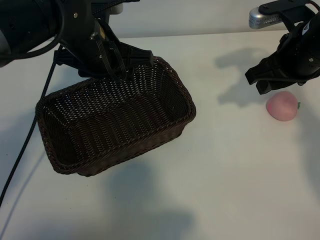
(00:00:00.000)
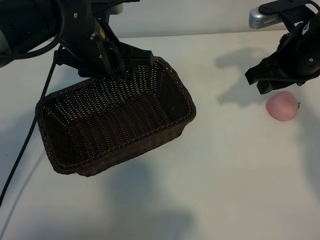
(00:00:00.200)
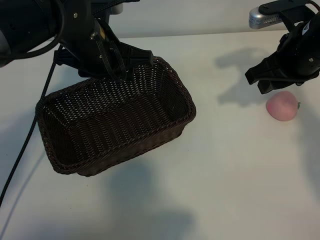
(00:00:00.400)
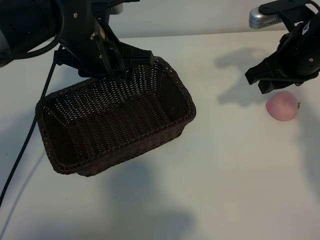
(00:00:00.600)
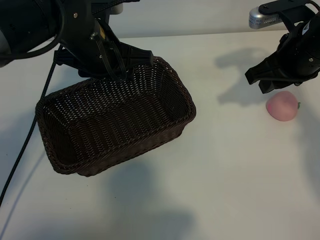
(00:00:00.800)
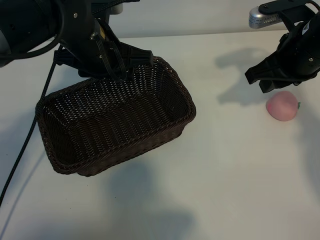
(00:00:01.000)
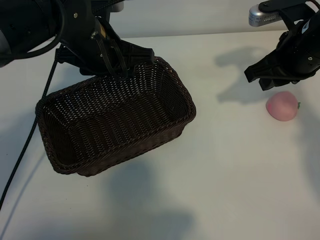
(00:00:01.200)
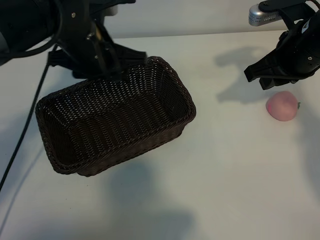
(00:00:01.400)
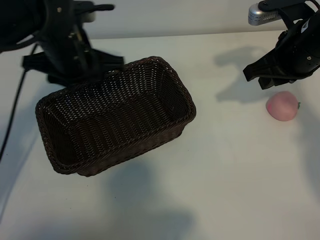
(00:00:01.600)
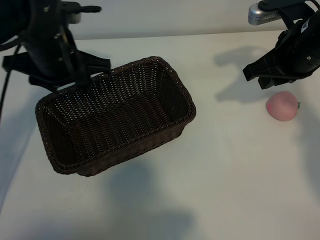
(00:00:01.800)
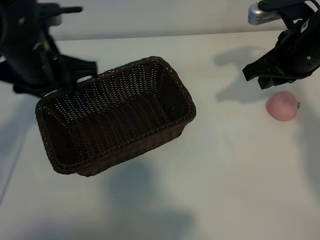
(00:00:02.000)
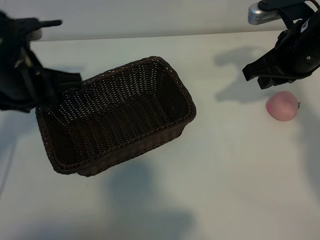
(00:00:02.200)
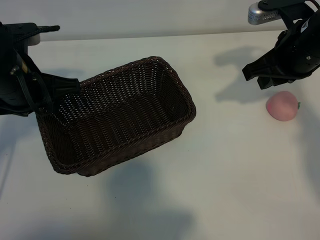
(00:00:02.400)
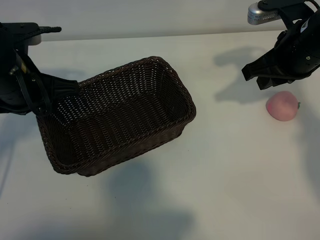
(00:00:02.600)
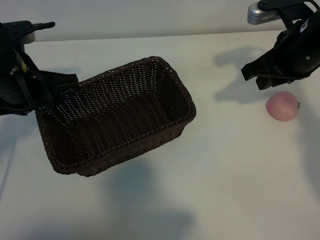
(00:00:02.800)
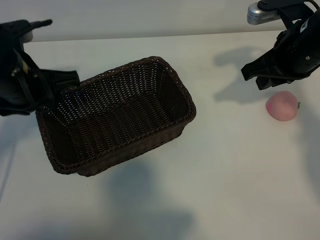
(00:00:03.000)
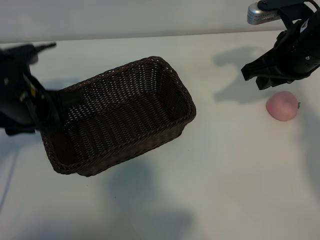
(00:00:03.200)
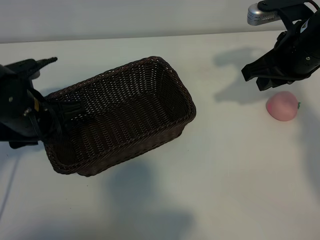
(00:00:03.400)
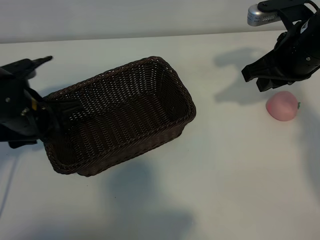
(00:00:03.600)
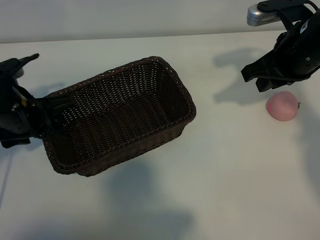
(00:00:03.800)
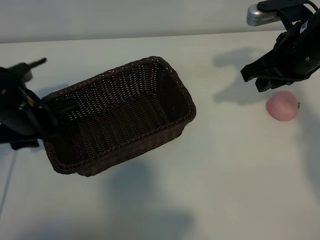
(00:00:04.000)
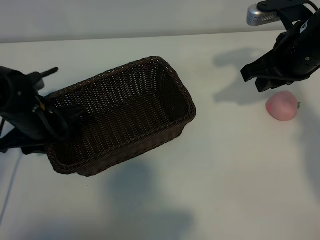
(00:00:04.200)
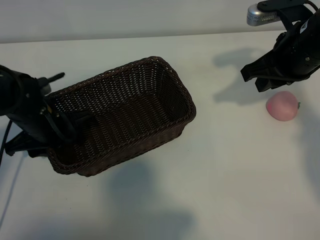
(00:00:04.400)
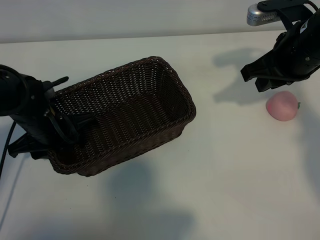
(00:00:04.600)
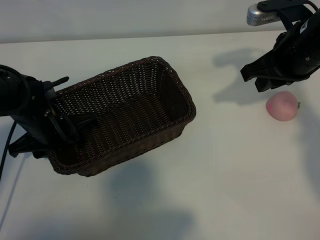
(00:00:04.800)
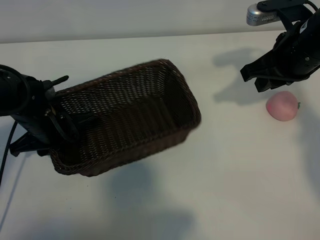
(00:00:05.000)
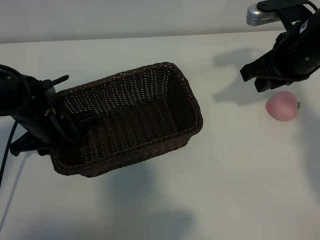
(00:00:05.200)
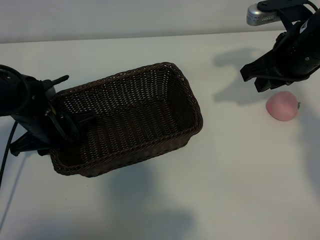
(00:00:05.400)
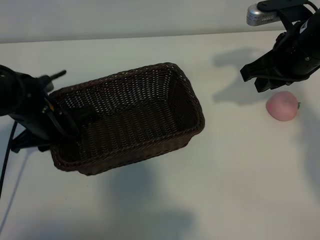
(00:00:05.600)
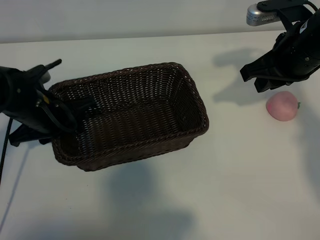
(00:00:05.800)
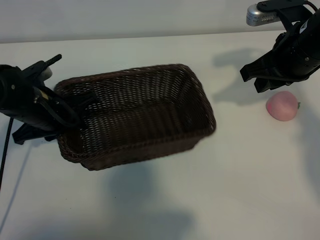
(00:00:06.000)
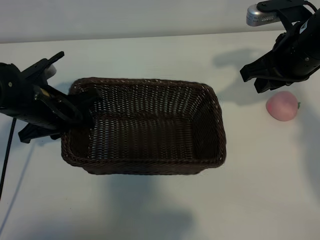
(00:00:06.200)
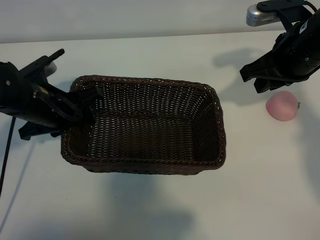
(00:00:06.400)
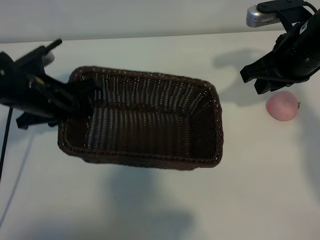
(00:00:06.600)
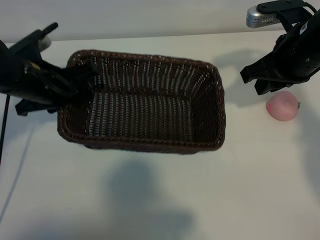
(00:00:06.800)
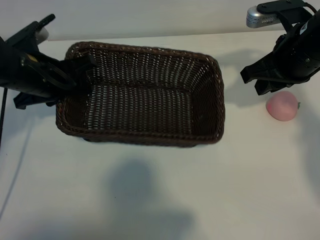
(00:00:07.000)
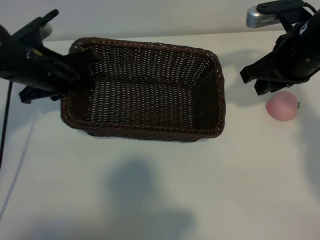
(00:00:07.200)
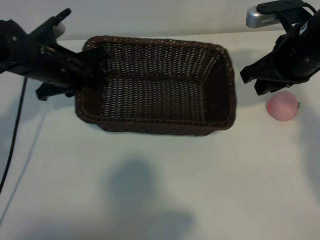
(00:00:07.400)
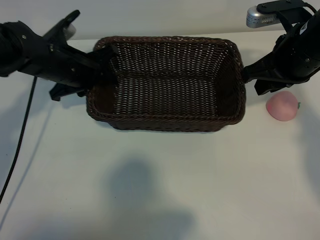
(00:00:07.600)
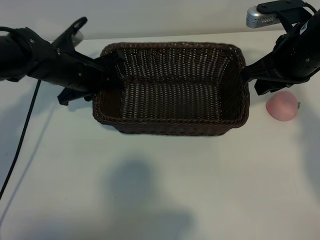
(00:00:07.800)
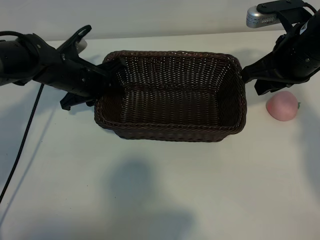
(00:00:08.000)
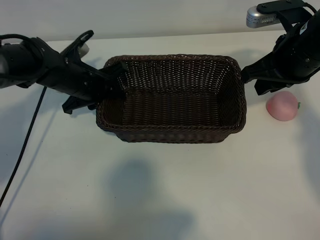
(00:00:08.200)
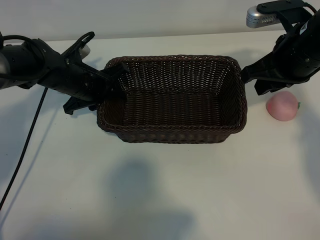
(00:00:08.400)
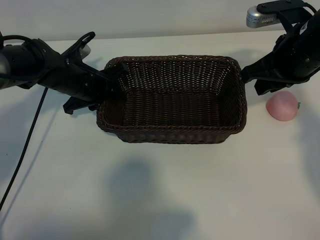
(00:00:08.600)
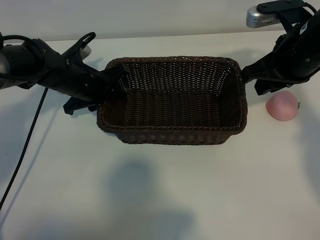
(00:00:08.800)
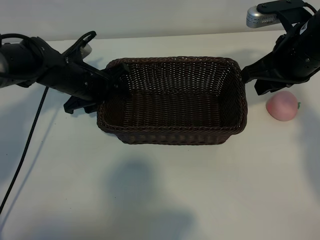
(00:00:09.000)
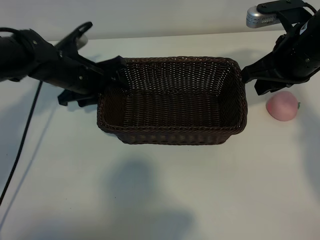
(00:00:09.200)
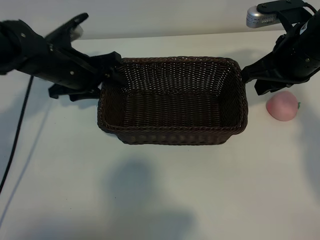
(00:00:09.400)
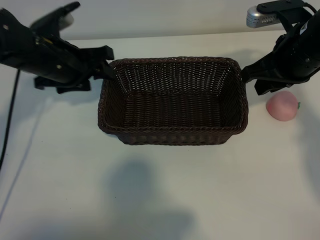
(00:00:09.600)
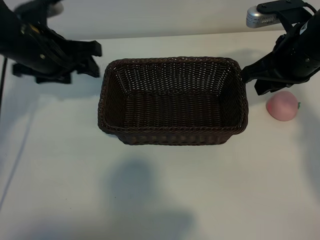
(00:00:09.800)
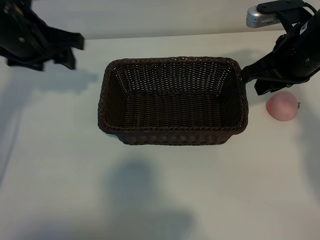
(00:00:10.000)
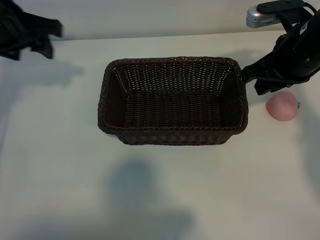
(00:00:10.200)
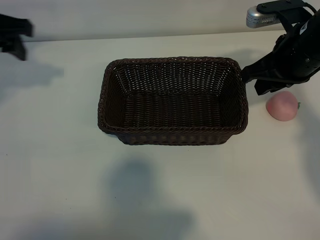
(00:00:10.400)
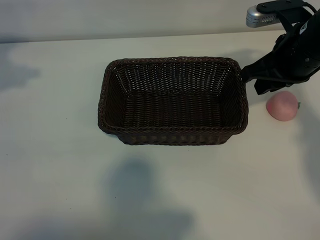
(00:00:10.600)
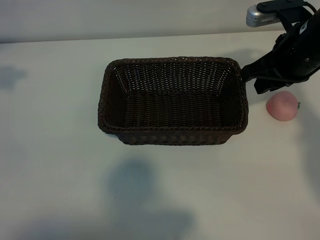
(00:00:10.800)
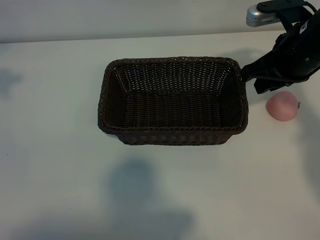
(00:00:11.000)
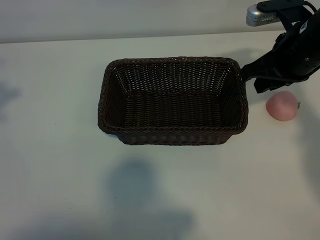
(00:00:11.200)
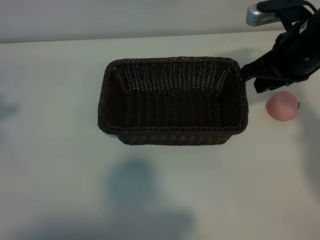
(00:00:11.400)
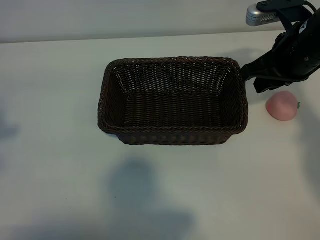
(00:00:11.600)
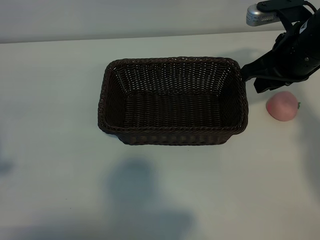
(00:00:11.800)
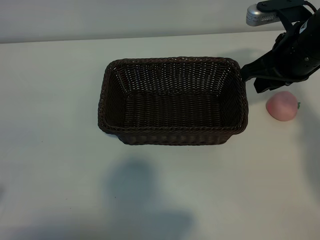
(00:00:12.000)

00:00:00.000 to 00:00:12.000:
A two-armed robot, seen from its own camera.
Task of the whole recording: pick up the peach and put it into the basket.
Step, 00:00:01.400 to 00:00:05.200: Grasp the basket with left gripper.
Step, 00:00:05.400 to 00:00:09.400: Place the basket in the center of view with left gripper.

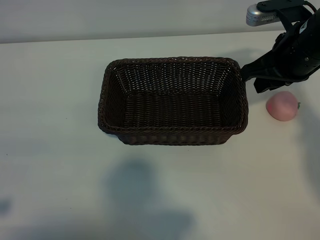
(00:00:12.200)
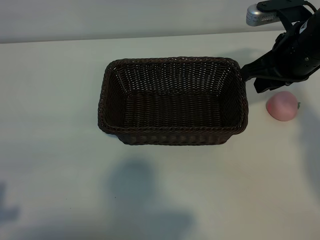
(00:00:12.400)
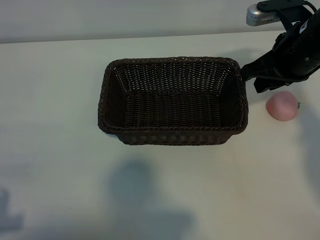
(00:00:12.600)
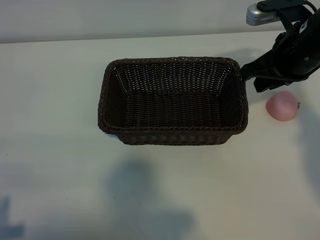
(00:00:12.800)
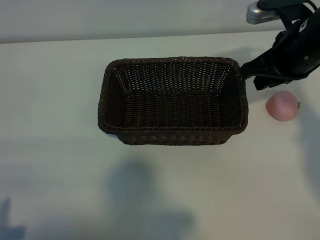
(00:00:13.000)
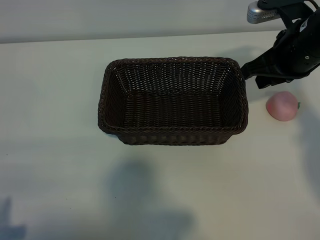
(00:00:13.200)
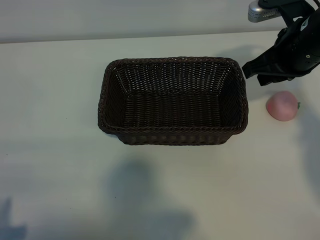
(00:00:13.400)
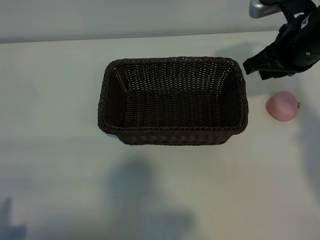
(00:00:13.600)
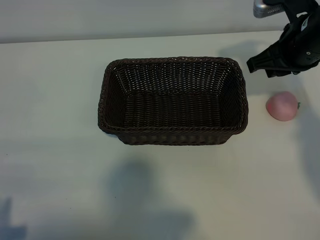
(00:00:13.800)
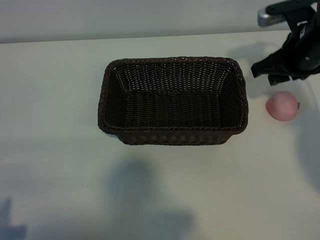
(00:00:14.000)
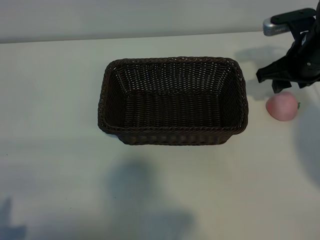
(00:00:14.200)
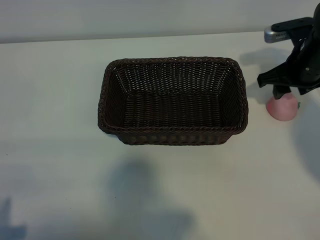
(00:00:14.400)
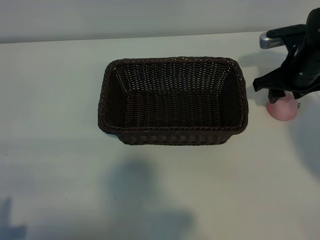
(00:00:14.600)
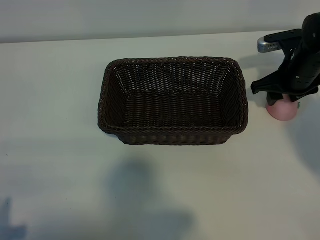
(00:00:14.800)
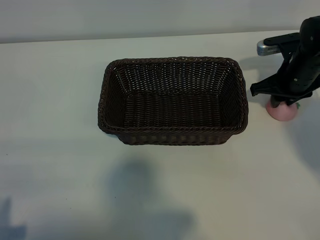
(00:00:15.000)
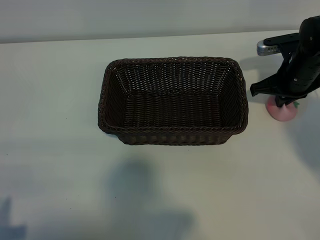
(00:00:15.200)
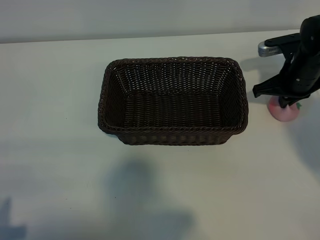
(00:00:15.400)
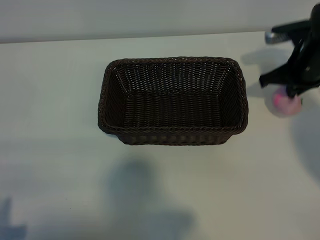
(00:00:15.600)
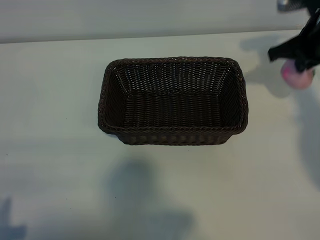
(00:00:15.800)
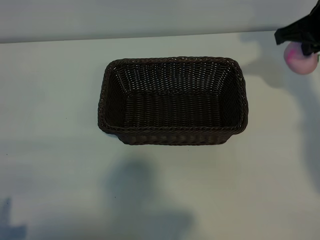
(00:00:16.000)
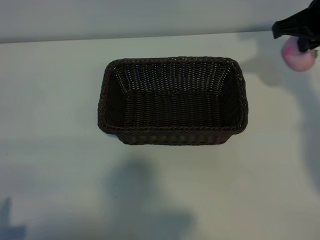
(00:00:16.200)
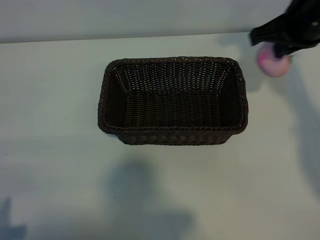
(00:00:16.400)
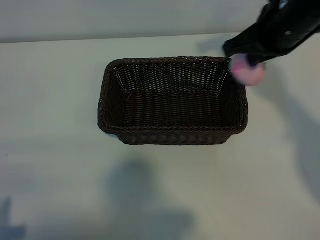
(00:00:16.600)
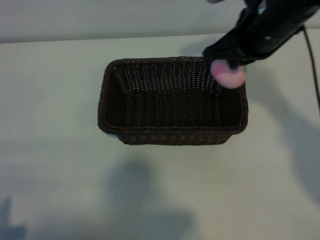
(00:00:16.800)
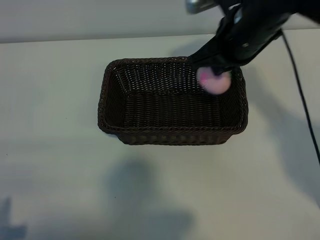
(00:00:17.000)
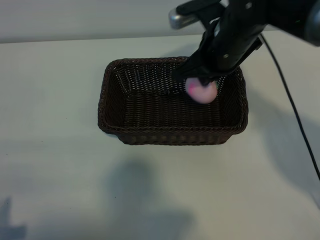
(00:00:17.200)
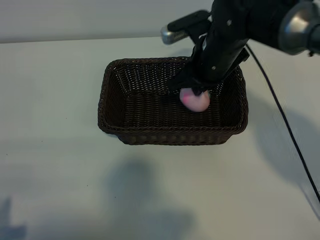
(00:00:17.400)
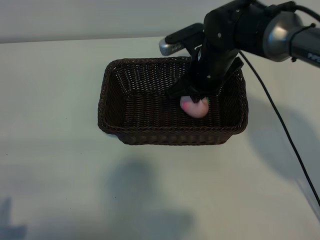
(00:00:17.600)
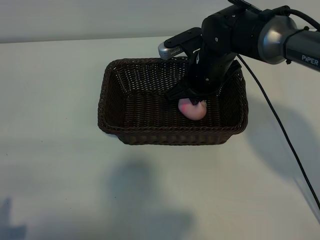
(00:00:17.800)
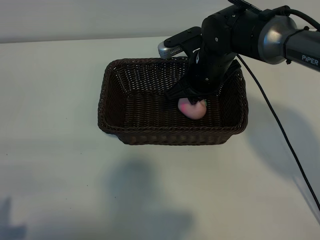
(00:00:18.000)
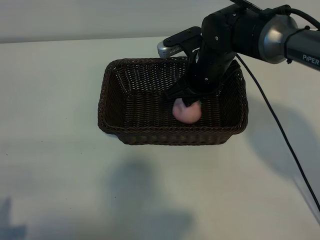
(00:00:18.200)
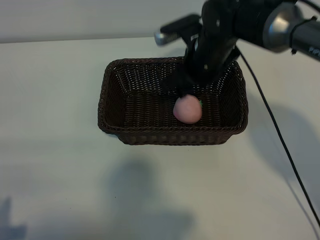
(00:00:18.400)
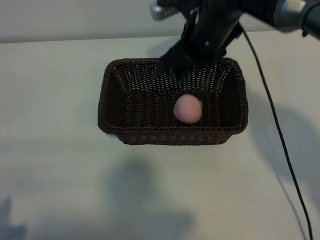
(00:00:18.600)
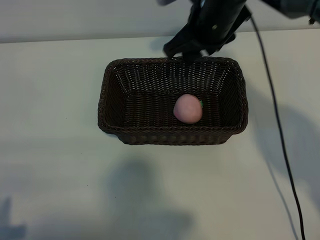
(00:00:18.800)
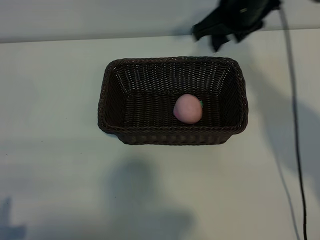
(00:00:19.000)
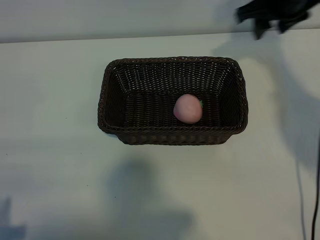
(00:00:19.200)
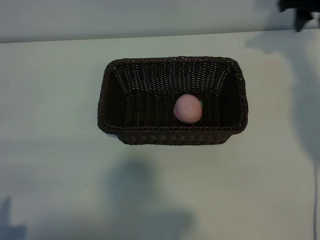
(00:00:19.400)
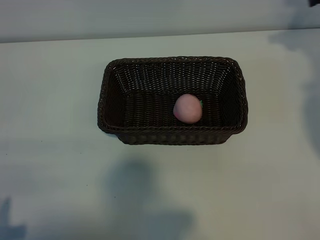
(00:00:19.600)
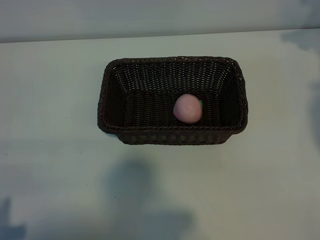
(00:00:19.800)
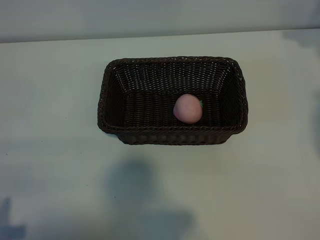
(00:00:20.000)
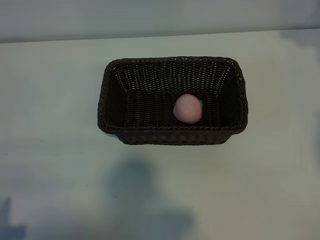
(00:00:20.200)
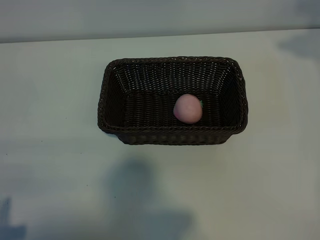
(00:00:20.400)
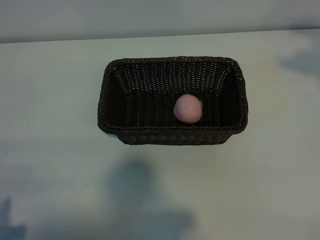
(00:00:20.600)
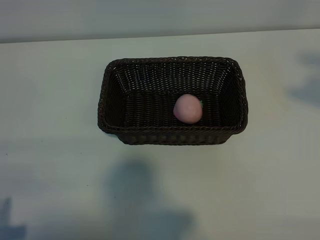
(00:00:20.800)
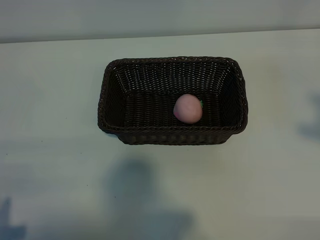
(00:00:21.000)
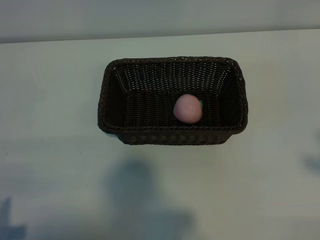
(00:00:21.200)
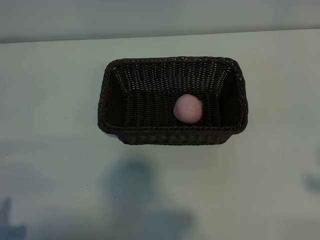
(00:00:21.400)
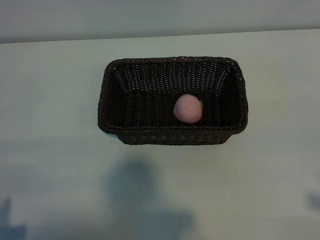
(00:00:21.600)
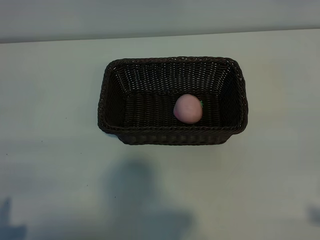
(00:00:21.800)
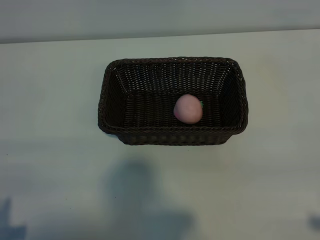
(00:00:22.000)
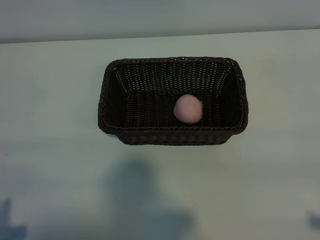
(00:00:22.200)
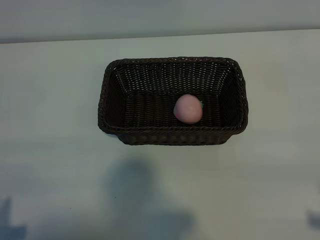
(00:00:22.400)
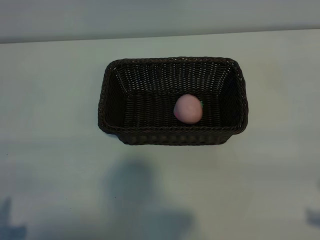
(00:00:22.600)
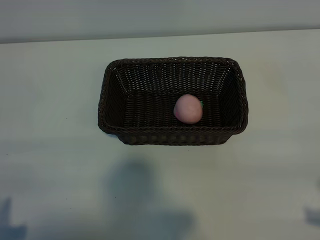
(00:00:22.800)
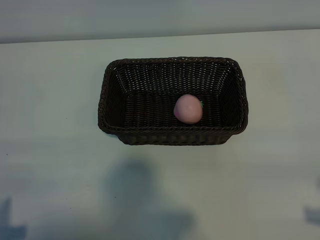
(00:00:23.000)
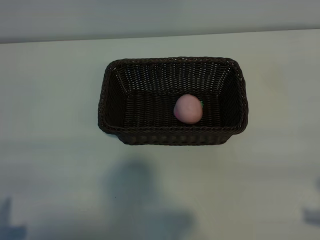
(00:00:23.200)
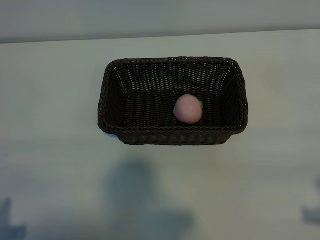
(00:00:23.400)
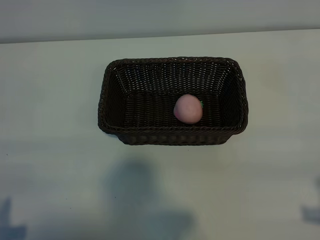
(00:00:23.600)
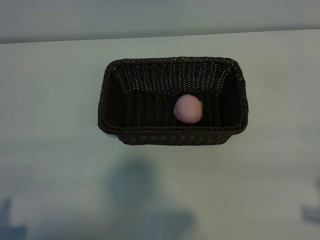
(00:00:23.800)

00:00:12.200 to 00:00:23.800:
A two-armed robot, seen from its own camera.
Task of the whole recording: pick up the peach and put it into the basket.
Step, 00:00:12.200 to 00:00:15.400: Grasp the peach with right gripper.
Step, 00:00:15.600 to 00:00:18.200: Place the peach in the basket with right gripper.
